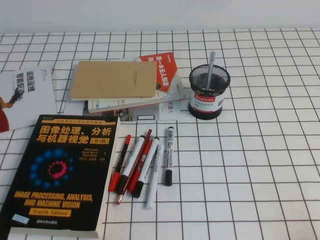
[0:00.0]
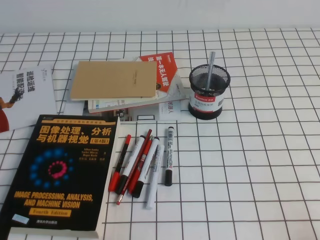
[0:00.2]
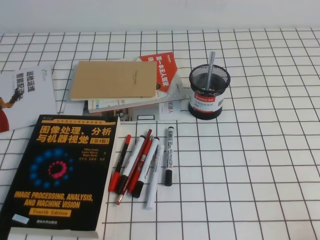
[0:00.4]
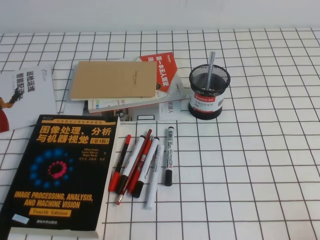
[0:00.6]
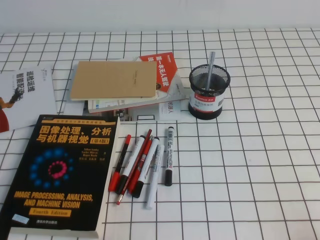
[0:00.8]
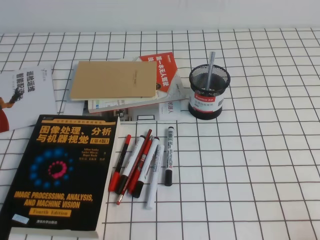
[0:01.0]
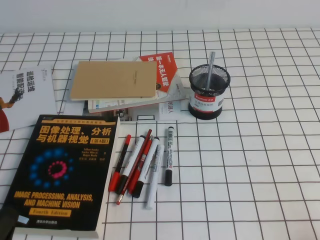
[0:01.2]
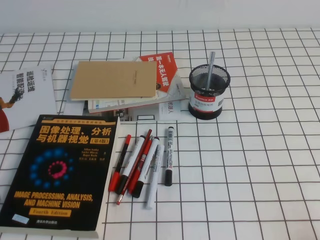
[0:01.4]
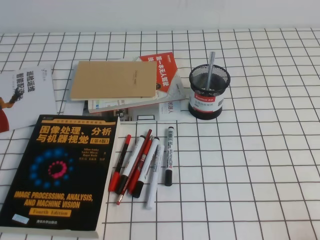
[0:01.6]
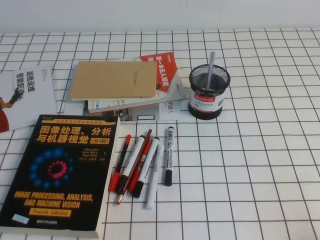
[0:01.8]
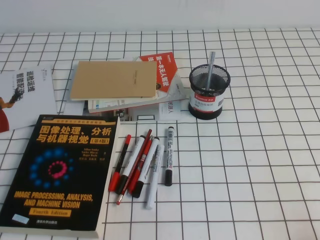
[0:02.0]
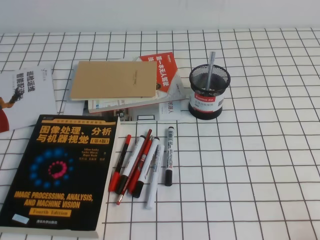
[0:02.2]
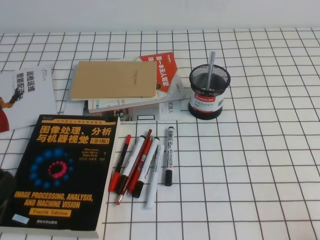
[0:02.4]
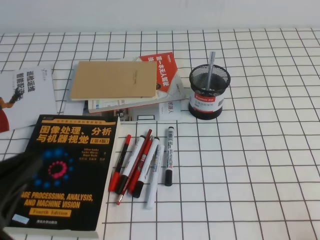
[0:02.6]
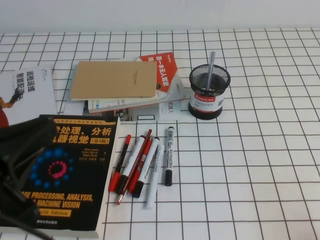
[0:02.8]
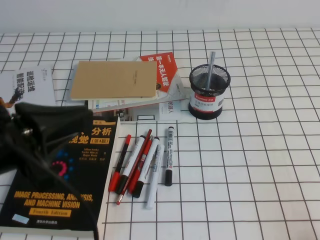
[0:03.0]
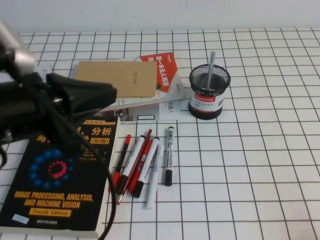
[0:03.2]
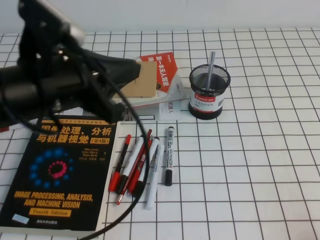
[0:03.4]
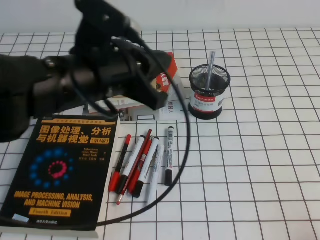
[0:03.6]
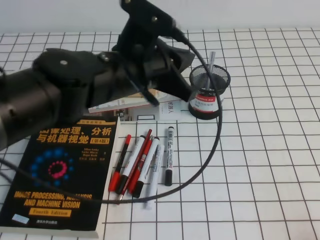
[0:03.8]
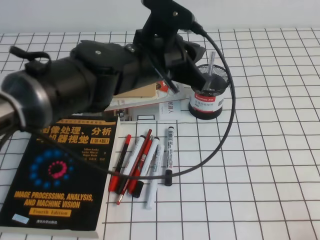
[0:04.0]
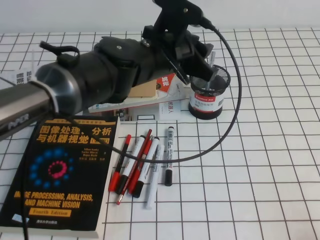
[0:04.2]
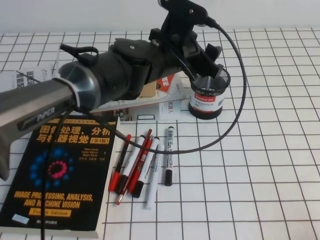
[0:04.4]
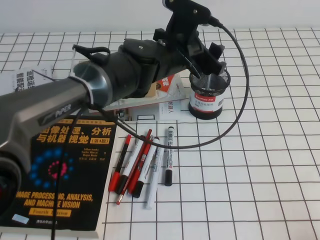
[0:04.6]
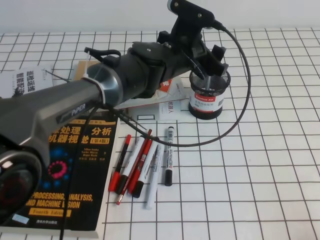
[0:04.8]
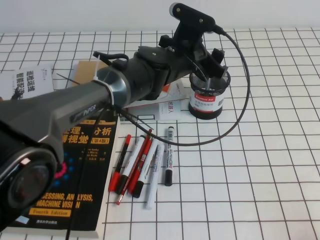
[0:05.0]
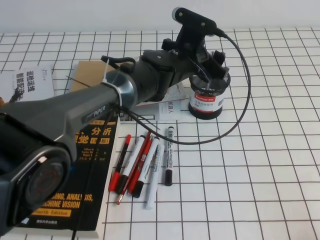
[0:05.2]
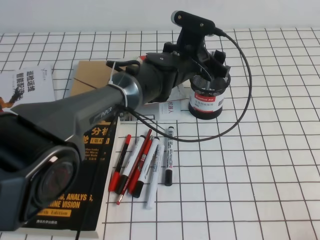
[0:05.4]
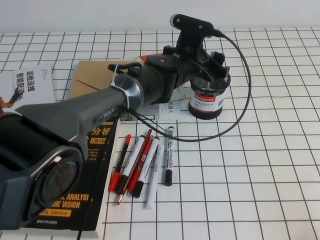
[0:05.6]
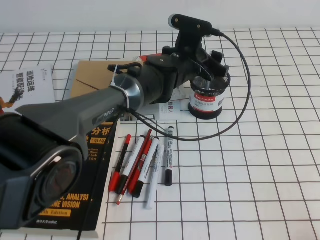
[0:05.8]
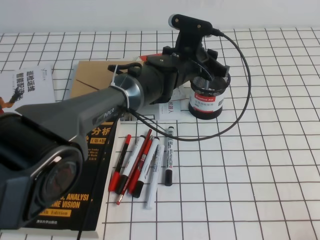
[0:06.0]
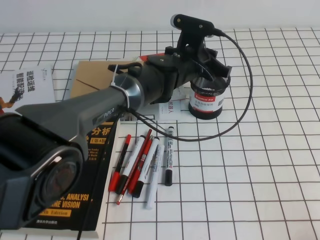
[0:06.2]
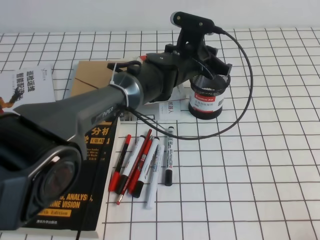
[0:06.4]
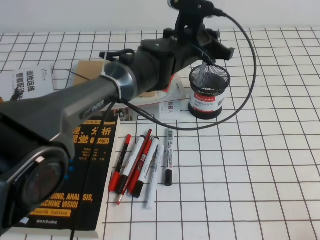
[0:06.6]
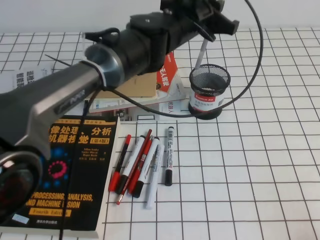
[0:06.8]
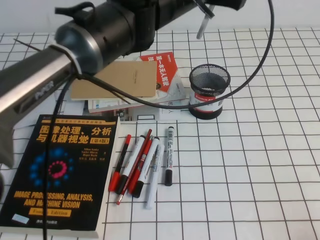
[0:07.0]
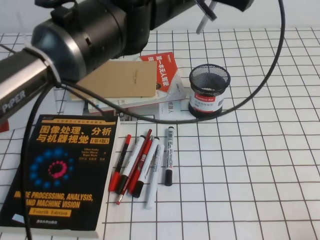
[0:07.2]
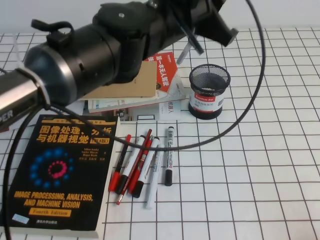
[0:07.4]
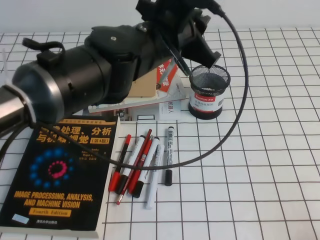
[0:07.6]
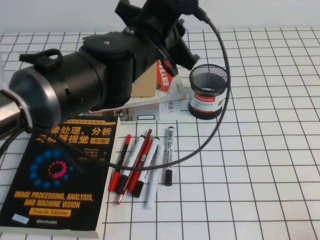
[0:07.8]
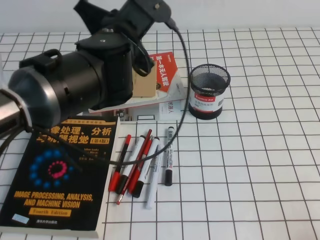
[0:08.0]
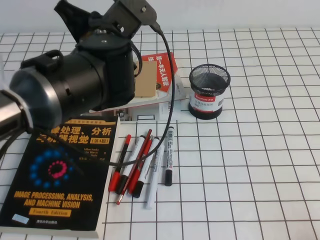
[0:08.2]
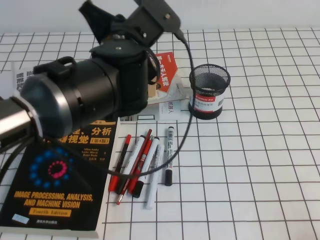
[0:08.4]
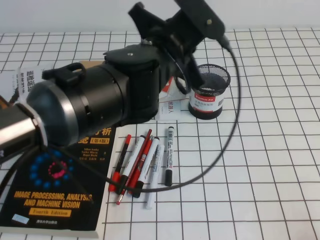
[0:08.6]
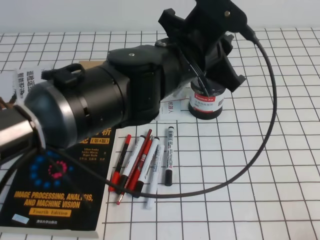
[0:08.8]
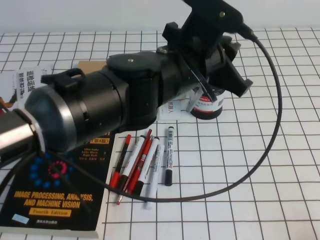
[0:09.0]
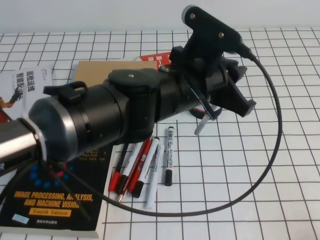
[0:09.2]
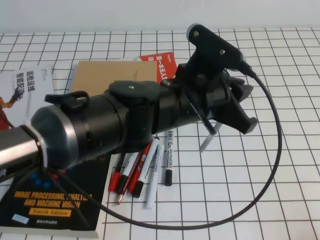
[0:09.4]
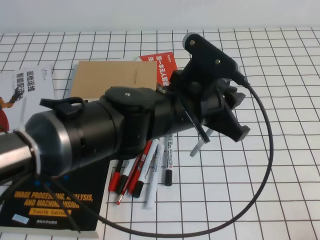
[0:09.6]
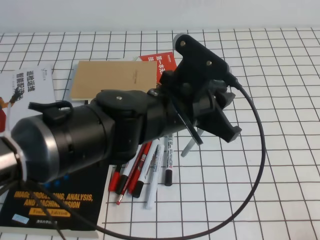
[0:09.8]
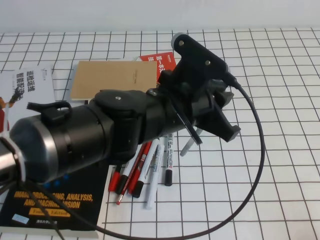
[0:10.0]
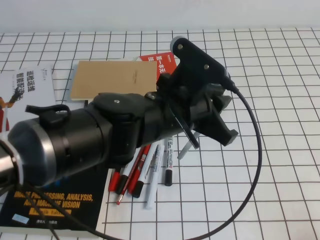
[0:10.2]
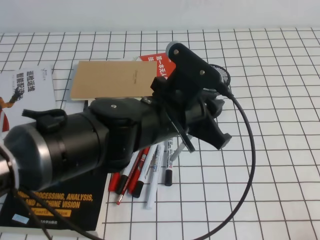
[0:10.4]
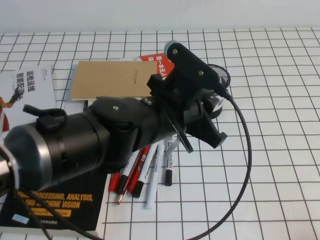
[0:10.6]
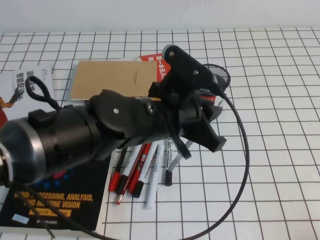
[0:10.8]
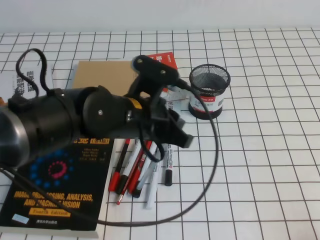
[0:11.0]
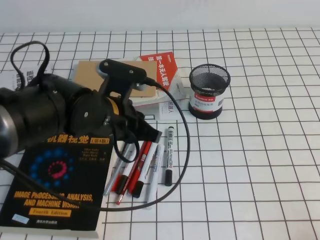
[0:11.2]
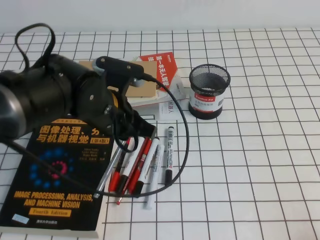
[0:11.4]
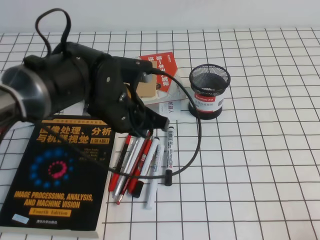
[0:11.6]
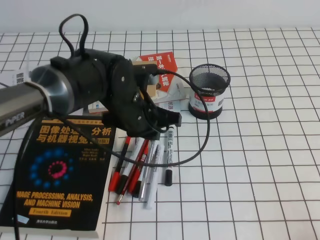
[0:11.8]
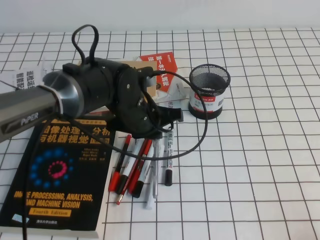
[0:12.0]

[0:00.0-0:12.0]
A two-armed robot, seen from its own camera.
0:01.6 to 0:03.0: The left gripper travels upward, forward and to the right by roughly 20 cm.
0:03.0 to 0:04.4: The left gripper goes some 30 cm forward and to the right, and opens up.
0:04.4 to 0:06.0: The left gripper shifts some 10 cm downward and forward.
0:06.0 to 0:07.6: The left gripper heads upward, backward and to the left, covering approximately 20 cm, and closes its fingers.
0:07.6 to 0:09.0: The left gripper moves backward, approximately 5 cm, and goes to the left and returns, roughly 5 cm each way.
0:09.0 to 0:10.4: The left gripper moves some 5 cm.
0:10.4 to 0:12.0: The left gripper travels forward and downward by approximately 10 cm.

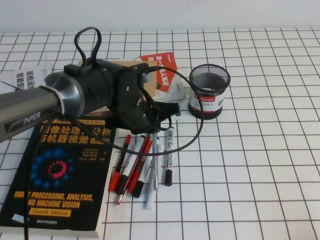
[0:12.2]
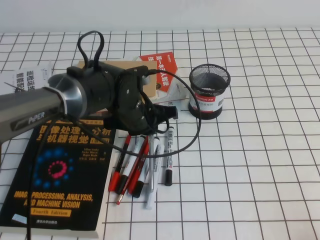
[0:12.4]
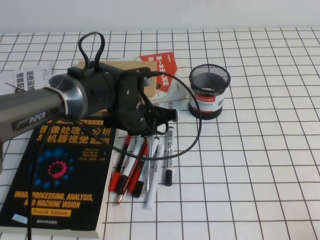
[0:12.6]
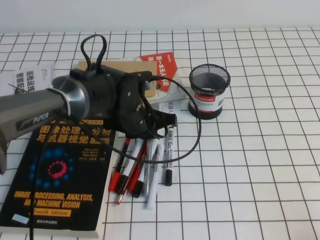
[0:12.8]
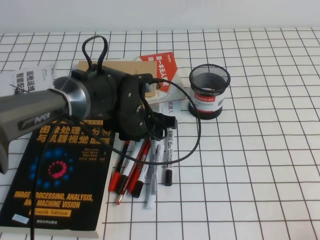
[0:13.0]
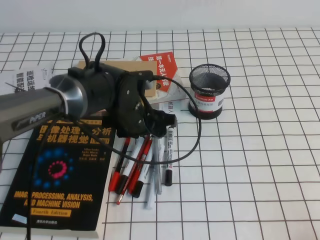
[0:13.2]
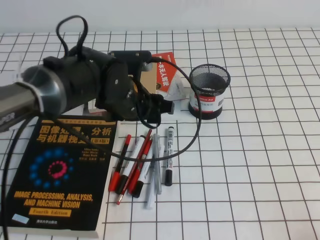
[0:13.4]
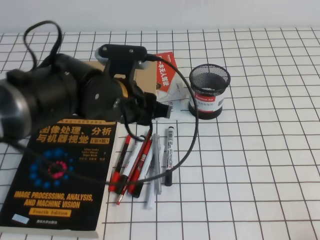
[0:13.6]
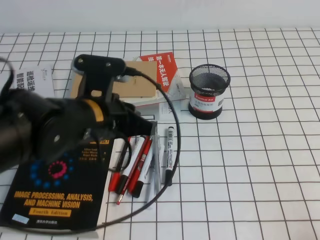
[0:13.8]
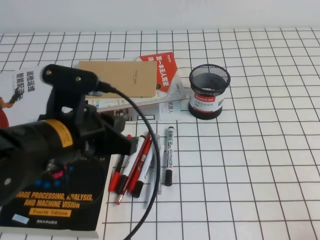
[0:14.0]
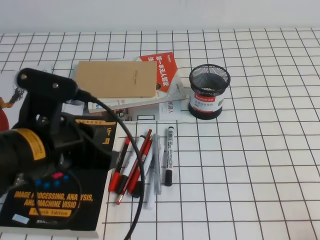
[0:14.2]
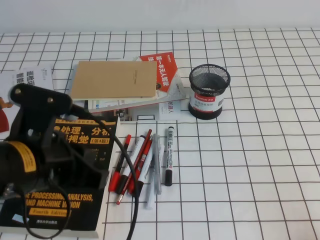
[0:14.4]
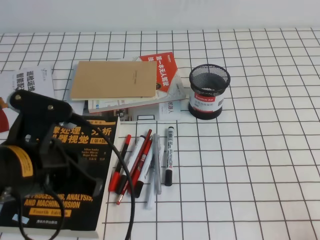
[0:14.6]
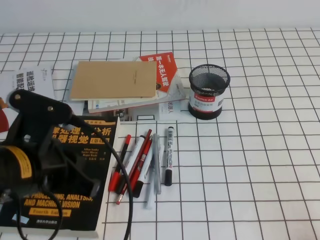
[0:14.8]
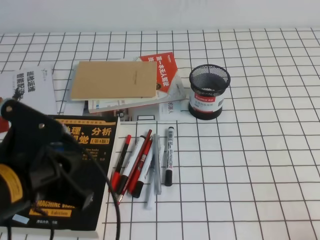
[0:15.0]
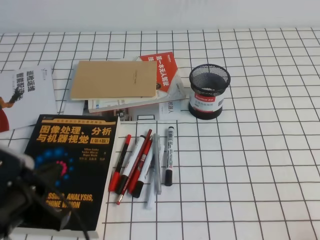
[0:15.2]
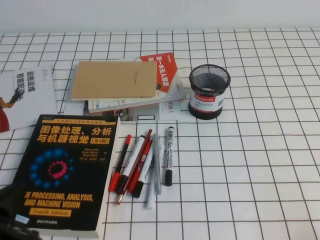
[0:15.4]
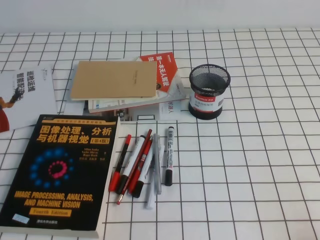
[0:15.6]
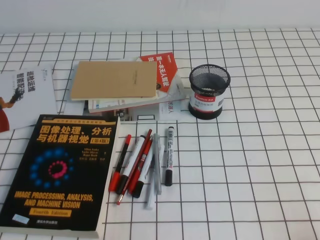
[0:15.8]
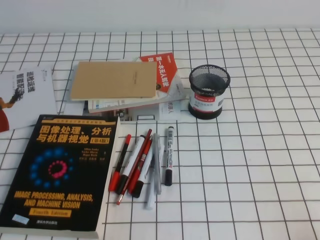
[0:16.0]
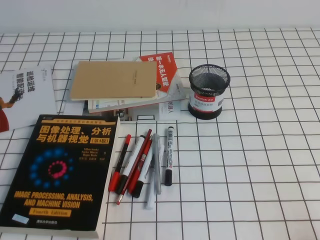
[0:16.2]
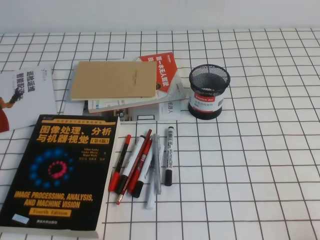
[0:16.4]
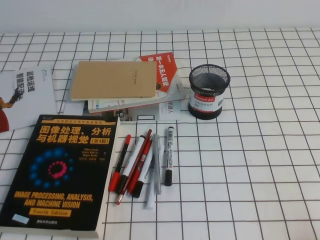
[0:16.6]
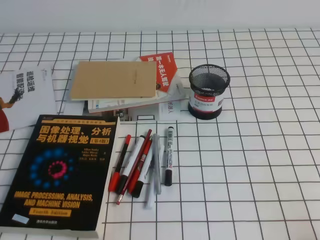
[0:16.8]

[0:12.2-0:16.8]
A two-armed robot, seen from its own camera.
Step, 0:12.2 to 0:16.8: Pick up the pen from the pen holder.
0:12.2 to 0:13.8: The left gripper travels backward, upward and to the left by about 10 cm, and opens, then closes once more.
0:13.8 to 0:15.2: The left gripper is displaced backward and to the left by some 15 cm.
0:15.2 to 0:16.8: The left gripper is displaced downward, backward and to the left by about 15 cm.
